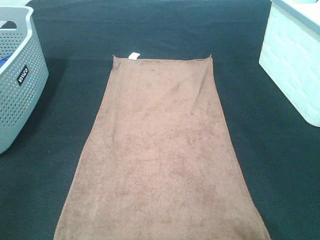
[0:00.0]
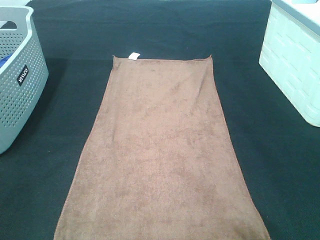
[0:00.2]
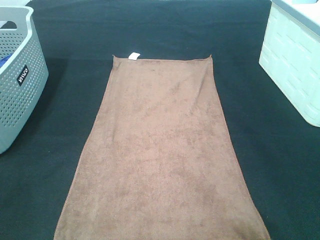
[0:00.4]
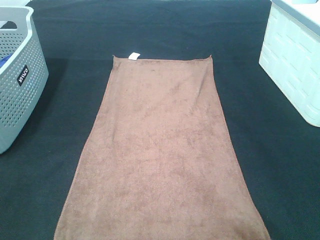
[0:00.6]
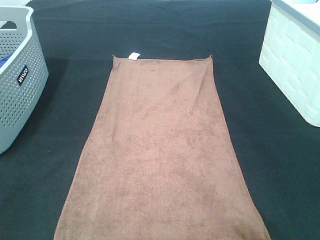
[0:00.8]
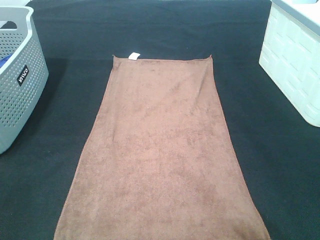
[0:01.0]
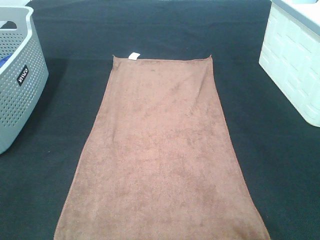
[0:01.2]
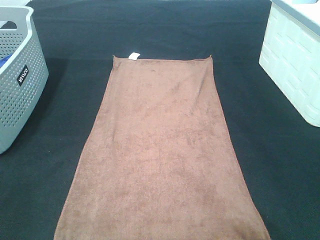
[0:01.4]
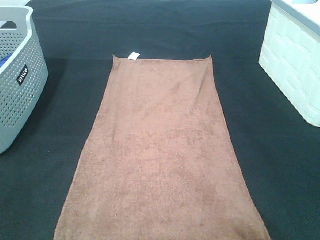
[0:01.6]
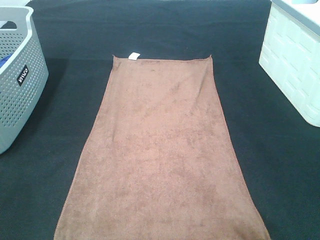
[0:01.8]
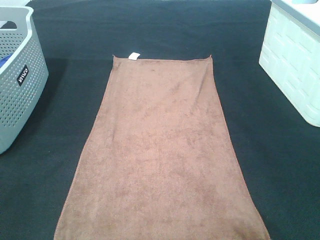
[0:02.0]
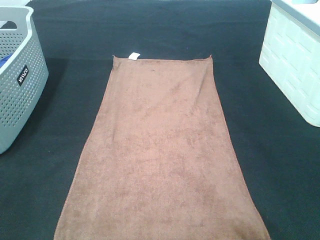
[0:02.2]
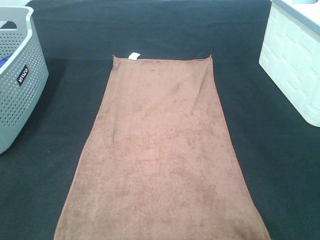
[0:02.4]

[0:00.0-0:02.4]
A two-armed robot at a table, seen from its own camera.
Task of the whole recording: Remove the towel and place it.
0:01.2 to 0:02.4: Neither gripper changes place.

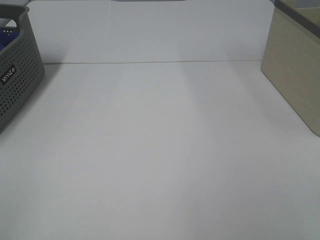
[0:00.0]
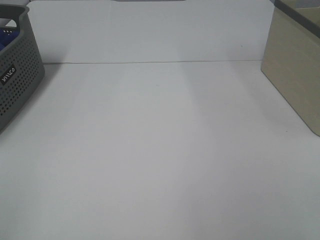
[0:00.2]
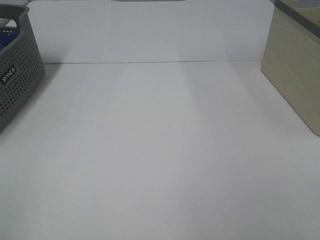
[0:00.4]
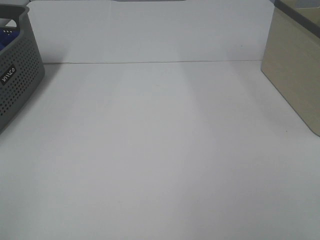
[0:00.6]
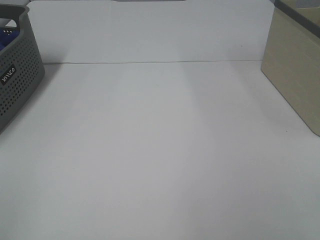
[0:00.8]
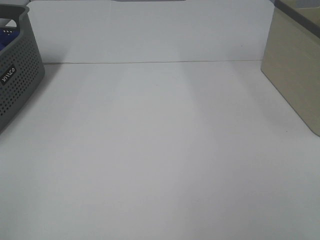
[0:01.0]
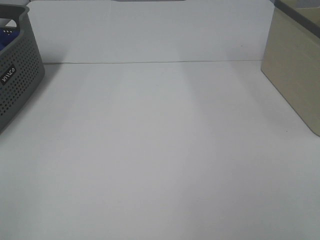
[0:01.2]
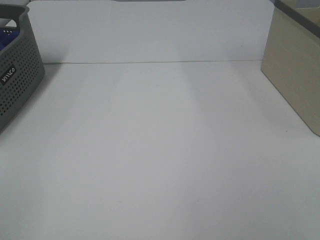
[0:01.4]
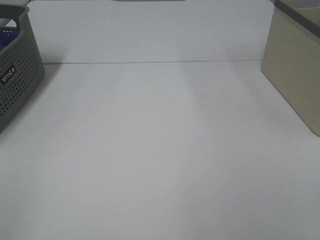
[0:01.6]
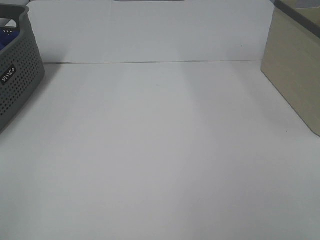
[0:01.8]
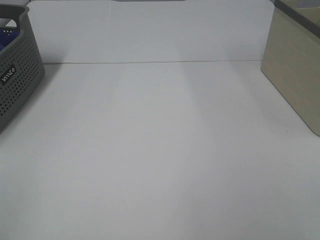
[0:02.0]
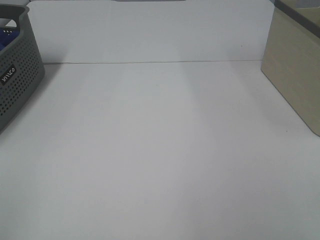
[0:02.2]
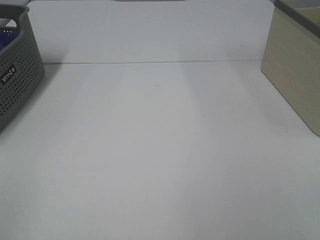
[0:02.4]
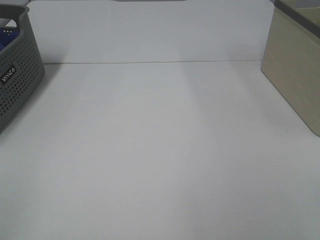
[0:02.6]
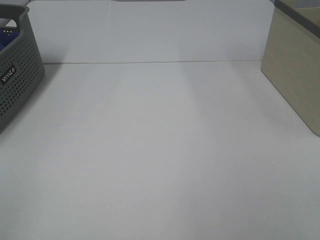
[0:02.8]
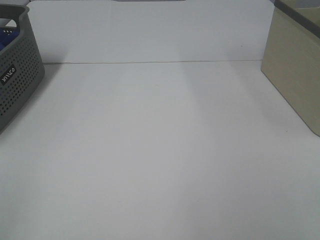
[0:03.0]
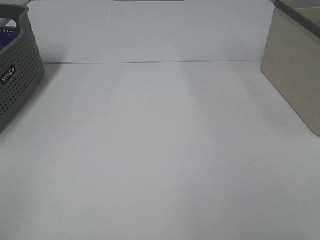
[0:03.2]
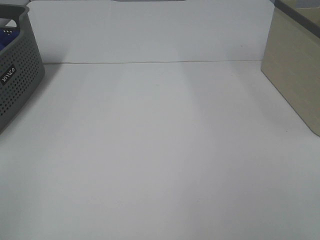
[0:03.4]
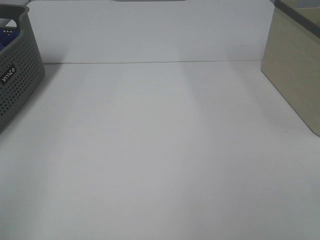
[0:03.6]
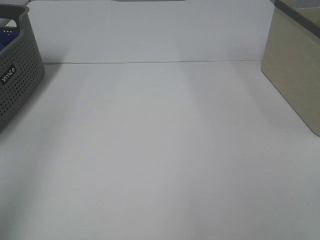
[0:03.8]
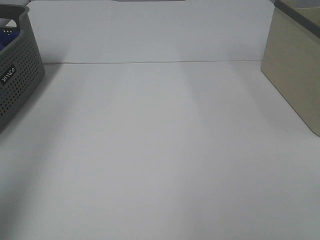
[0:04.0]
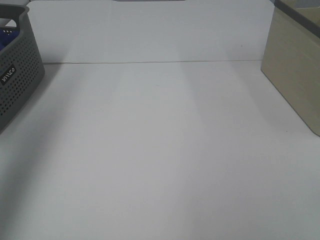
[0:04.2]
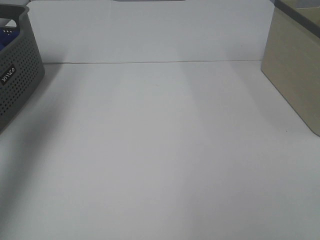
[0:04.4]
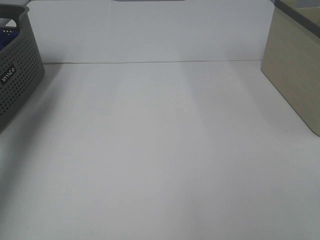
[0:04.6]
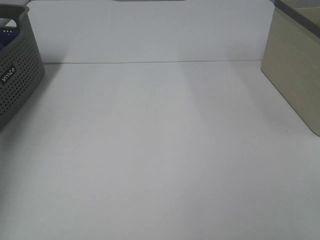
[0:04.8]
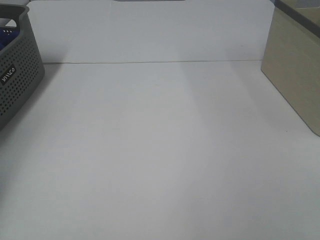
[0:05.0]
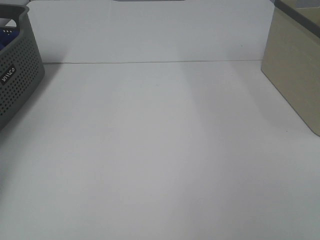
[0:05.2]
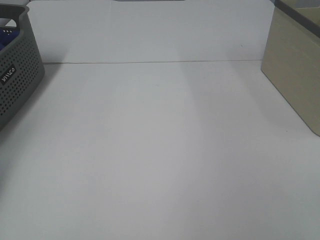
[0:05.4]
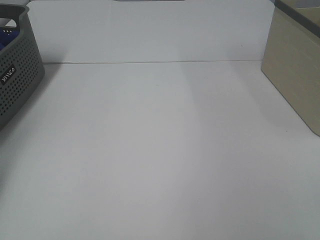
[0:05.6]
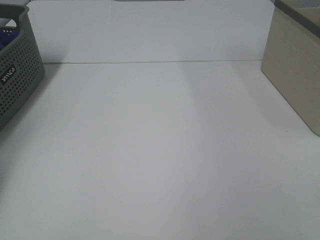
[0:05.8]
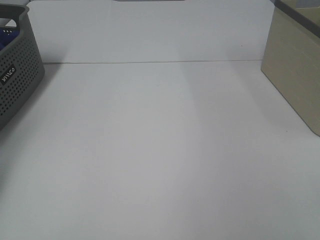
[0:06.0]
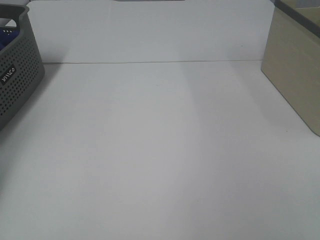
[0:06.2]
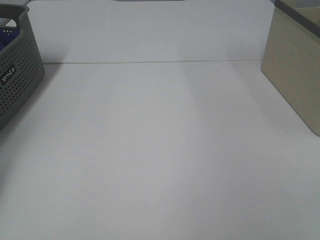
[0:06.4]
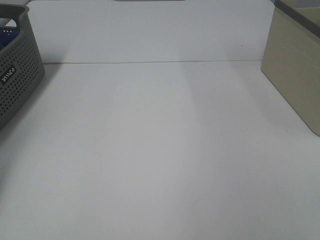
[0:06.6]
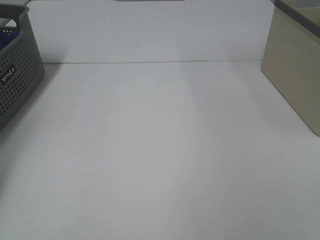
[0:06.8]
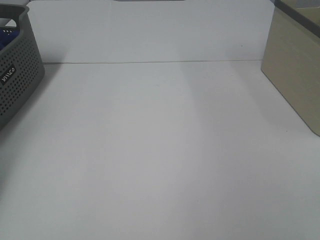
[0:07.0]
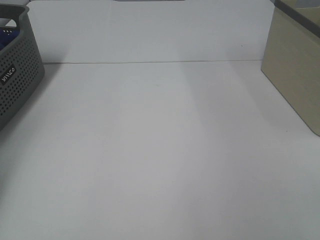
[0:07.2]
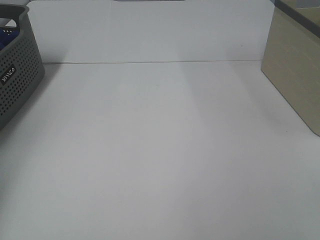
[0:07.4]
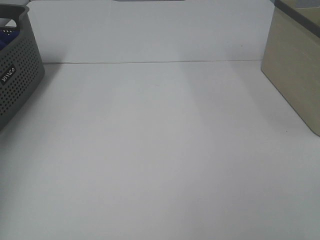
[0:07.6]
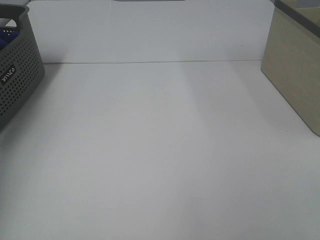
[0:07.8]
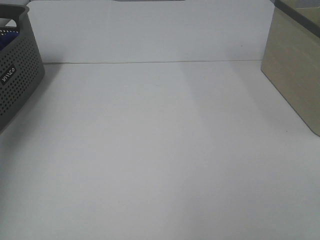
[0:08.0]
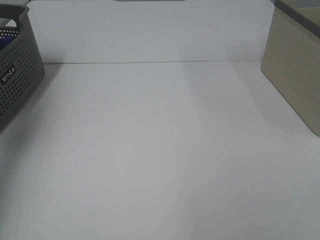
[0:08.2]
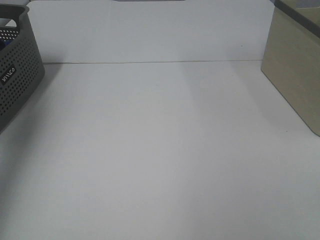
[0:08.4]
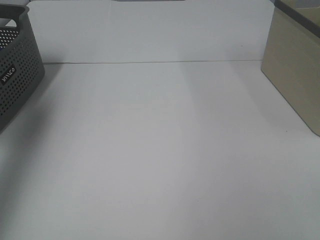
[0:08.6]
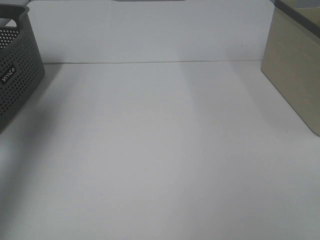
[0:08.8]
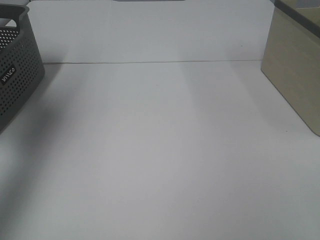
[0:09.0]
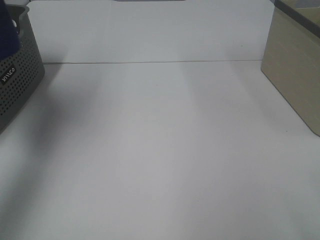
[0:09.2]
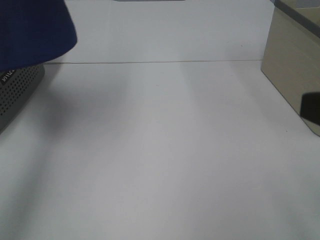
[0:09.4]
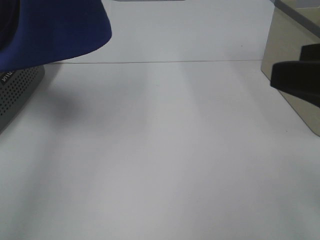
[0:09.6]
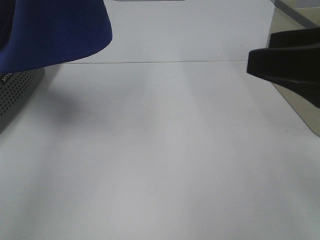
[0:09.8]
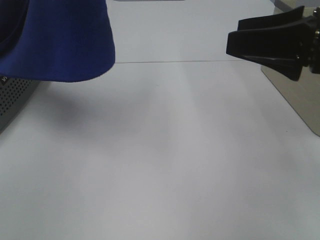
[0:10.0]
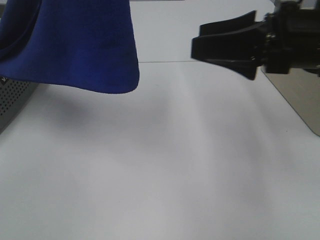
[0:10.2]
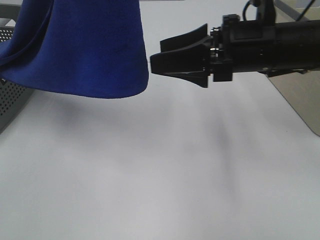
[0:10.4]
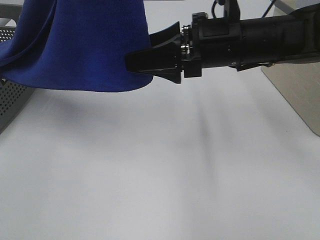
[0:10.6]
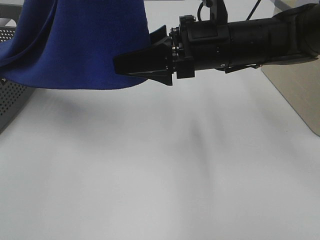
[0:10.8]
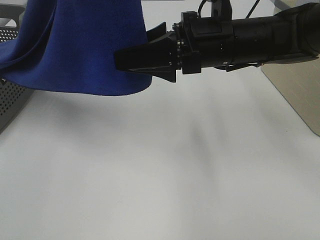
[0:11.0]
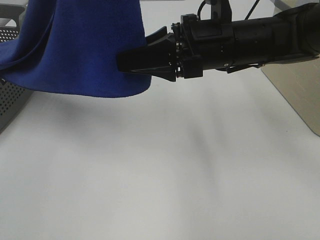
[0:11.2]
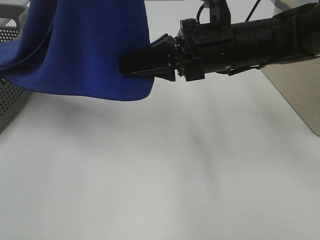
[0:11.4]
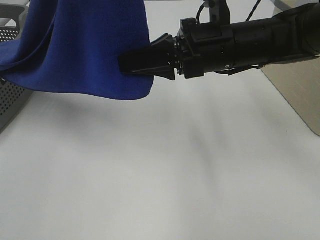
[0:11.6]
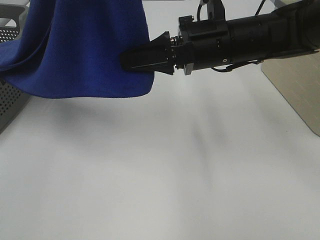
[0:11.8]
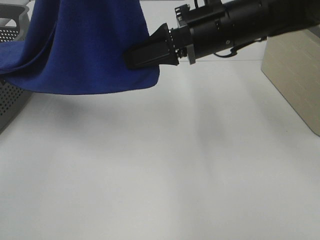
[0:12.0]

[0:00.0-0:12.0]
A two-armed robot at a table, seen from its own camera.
Task of the whole recording: Remove the towel and place it.
Step, 0:08.4 to 0:11.8: Right hand: grab a corner of the blue towel and straighten it.
0:01.6 to 0:03.0: Both grippers stay put.
0:03.0 to 0:04.4: The left gripper is displaced forward and upward by about 35 cm.
0:04.4 to 0:06.0: The left gripper heads downward, forward and to the left, covering roughly 30 cm, and closes its fingers.
0:07.6 to 0:09.0: The left gripper goes approximately 25 cm upward, backward and to the right.
0:09.0 to 0:10.4: The left gripper moves to the right, some 15 cm, while the right gripper travels forward and to the left by about 30 cm.
0:10.4 to 0:12.0: The right gripper ends up roughly 5 cm from where it was, and closes.

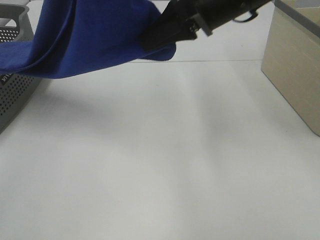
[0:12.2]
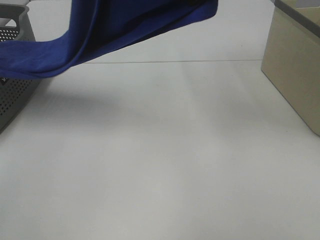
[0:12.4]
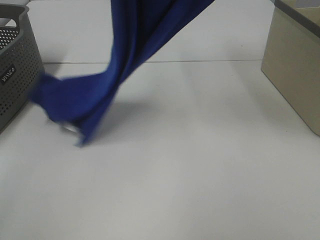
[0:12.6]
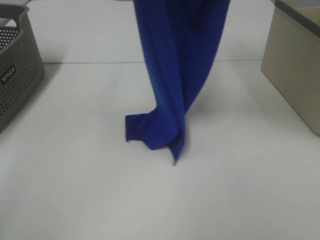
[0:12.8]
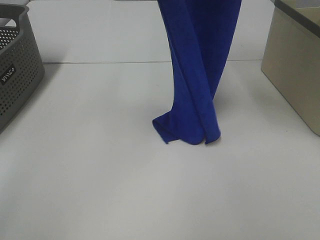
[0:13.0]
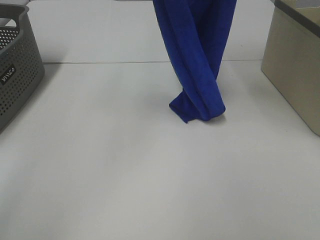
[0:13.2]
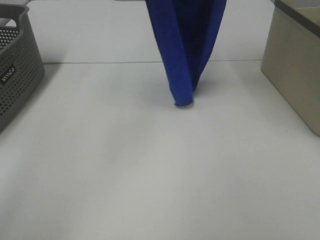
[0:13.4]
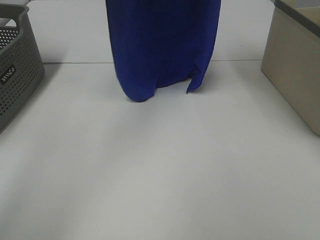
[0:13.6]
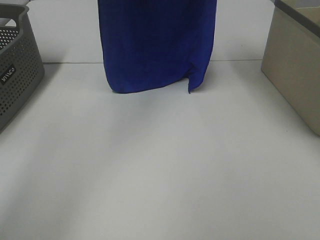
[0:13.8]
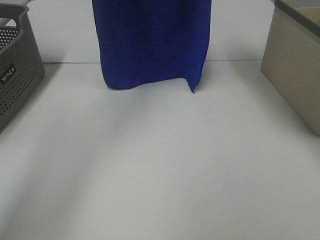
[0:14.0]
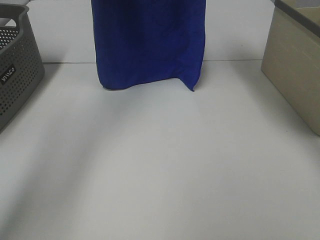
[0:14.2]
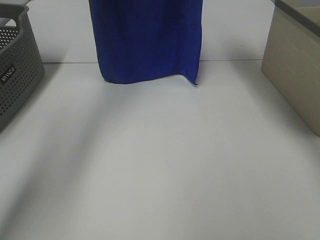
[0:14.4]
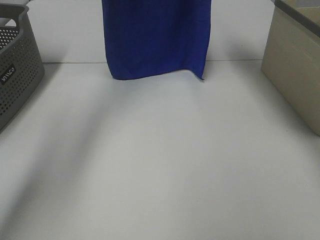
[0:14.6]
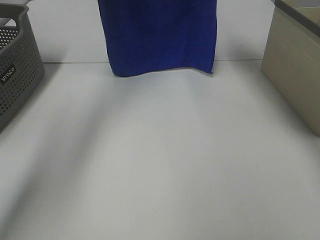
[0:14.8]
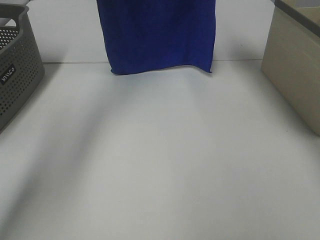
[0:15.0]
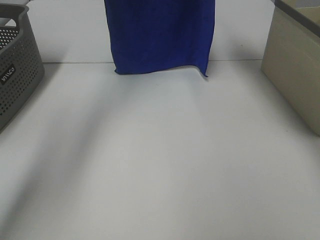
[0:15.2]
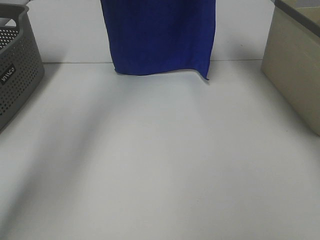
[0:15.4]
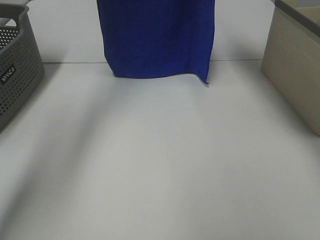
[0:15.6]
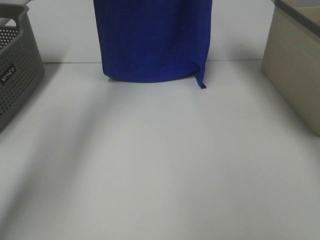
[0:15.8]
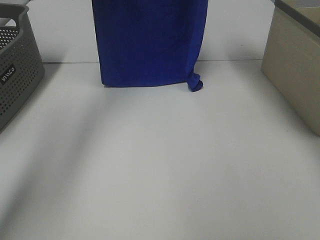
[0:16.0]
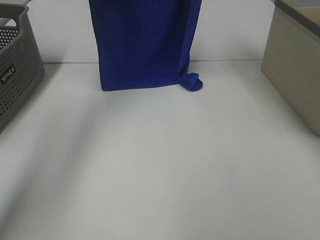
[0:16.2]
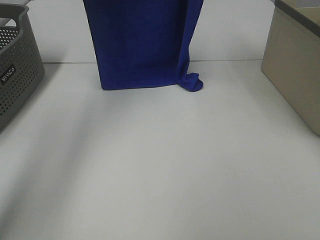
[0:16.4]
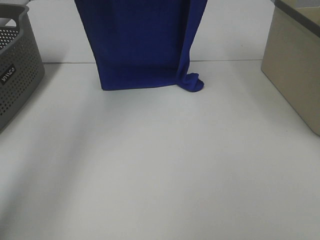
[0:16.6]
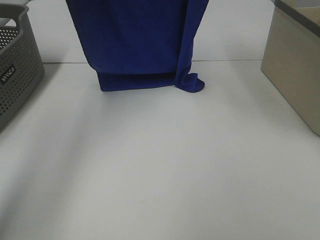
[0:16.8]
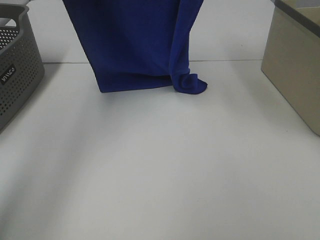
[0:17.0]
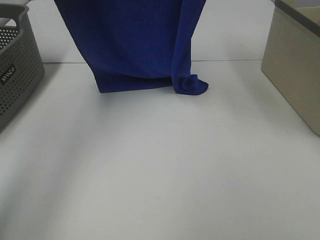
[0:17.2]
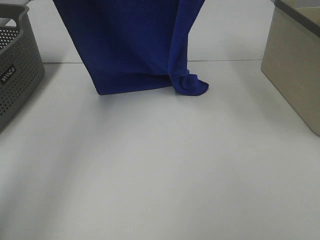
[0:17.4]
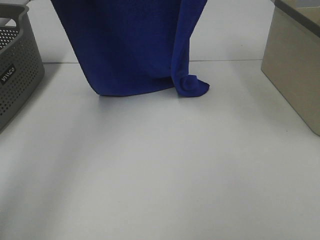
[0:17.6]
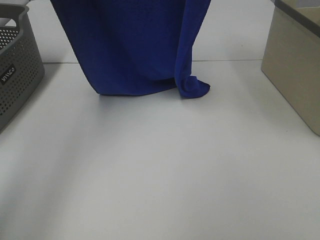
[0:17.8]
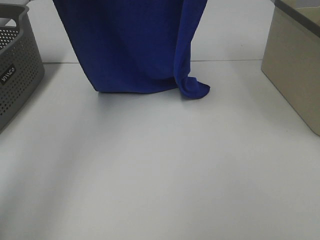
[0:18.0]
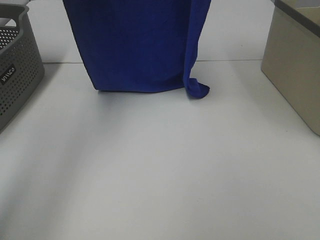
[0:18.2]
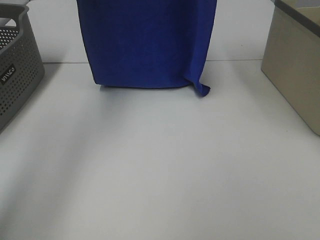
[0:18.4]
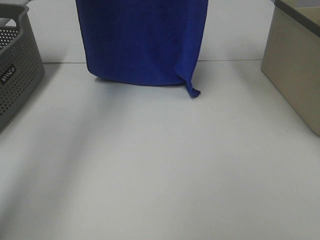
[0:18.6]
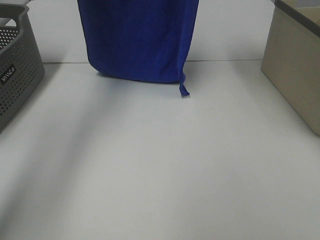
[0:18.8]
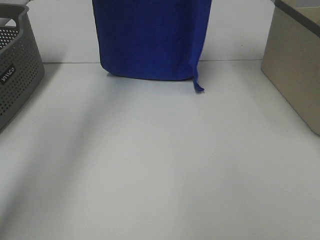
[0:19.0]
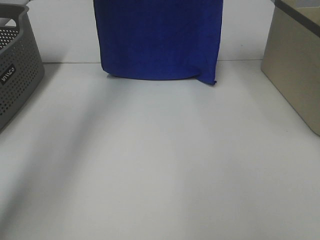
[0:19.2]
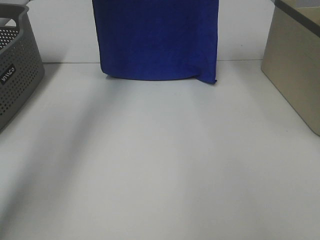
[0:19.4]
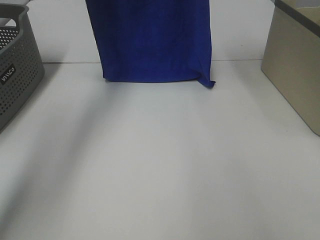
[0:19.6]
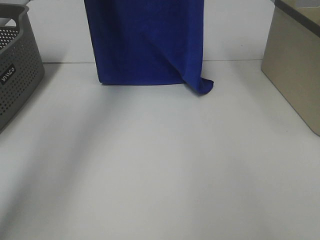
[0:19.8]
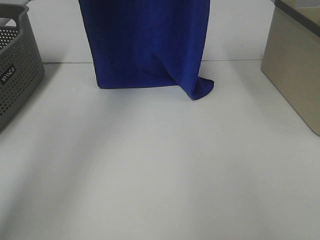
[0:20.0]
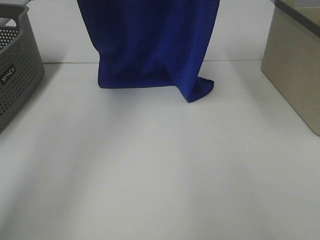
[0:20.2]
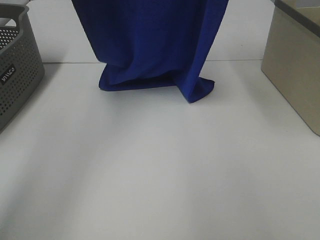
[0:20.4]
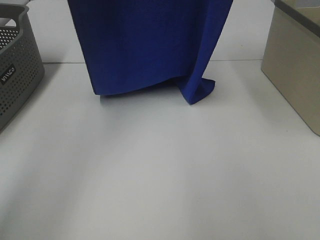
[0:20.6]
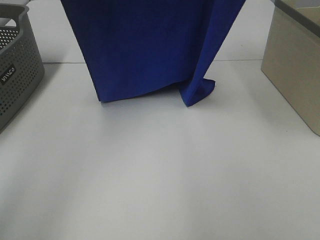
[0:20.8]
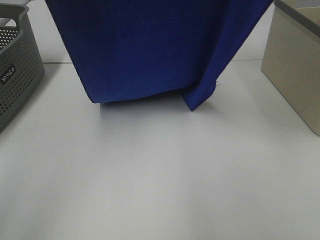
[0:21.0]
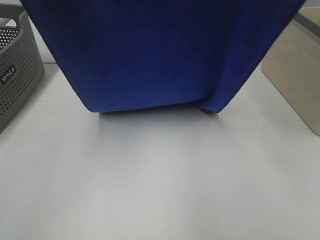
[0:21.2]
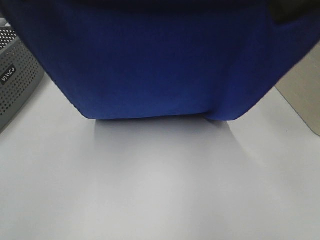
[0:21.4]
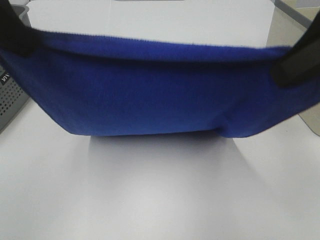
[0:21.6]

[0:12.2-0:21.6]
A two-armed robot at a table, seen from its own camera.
Task of the whole recording: Remove the towel and place it.
Step, 0:12.2 to 0:20.0: Left hand: spread the blue towel flat on the table.
Step, 0:12.2 to 0:20.0: Right hand: spread the blue towel flat on the table.
0:12.2 to 0:13.8: The right gripper travels upward and forward by approximately 20 cm, while the left gripper travels forward by some 15 cm.
0:13.8 to 0:15.4: The grippers both shift forward by approximately 5 cm.
0:15.4 to 0:17.0: Both grippers move backward, about 10 cm.
0:18.4 to 0:20.0: The right gripper ends up about 5 cm from where it was.
0:20.0 to 0:21.6: The left gripper travels backward by approximately 25 cm; the right gripper is displaced backward and downward by roughly 25 cm.
